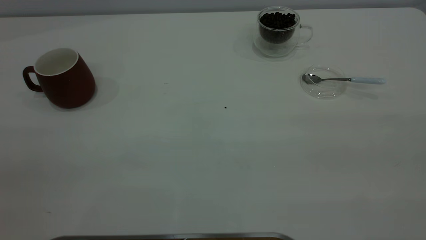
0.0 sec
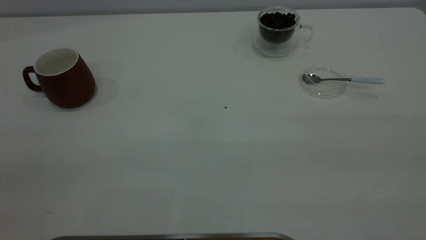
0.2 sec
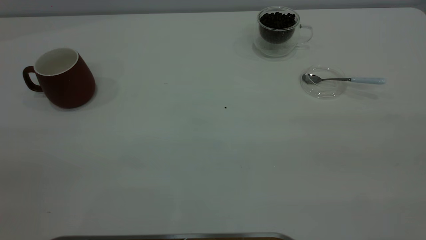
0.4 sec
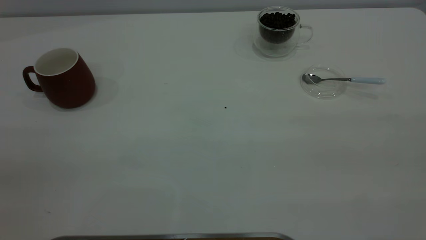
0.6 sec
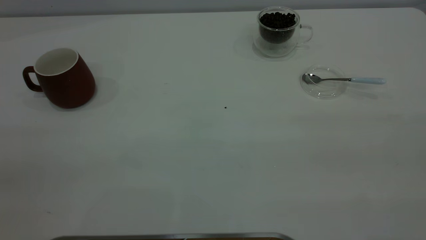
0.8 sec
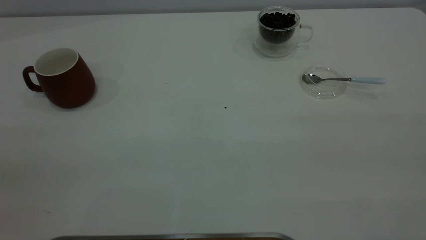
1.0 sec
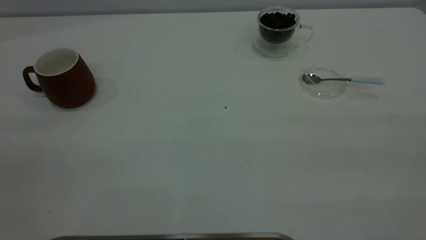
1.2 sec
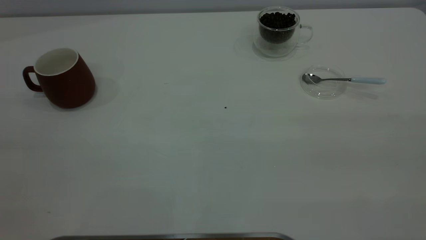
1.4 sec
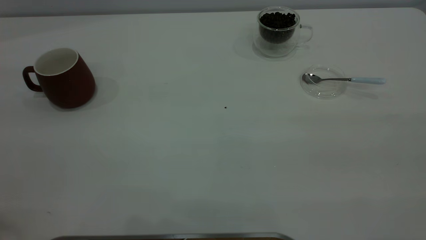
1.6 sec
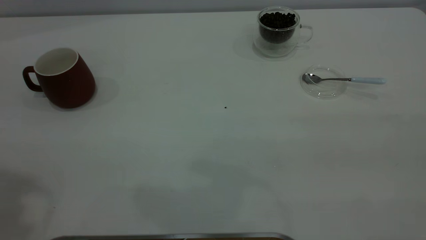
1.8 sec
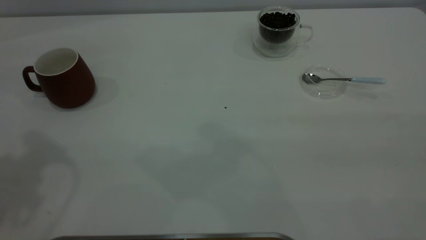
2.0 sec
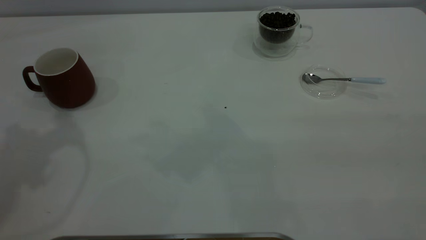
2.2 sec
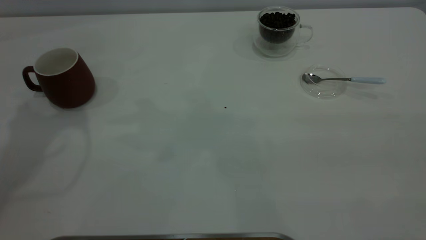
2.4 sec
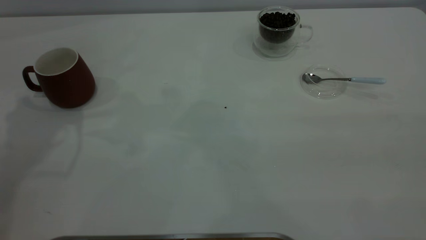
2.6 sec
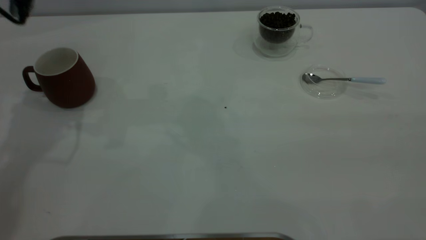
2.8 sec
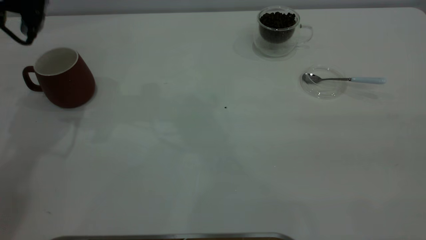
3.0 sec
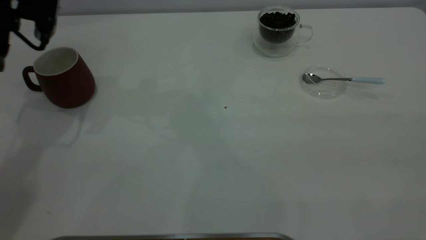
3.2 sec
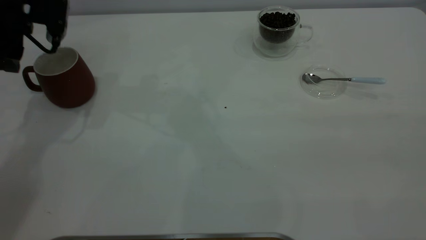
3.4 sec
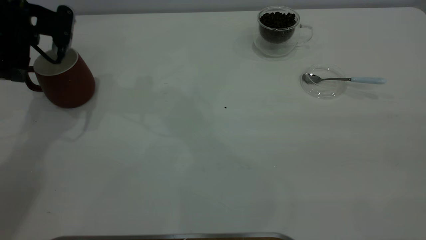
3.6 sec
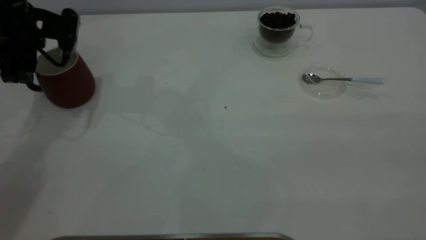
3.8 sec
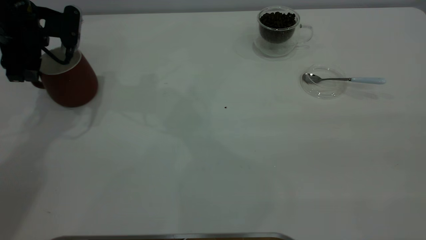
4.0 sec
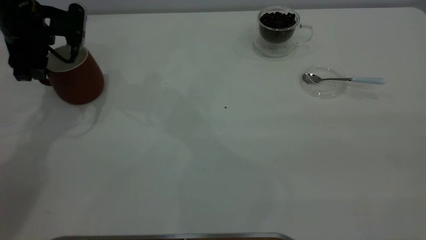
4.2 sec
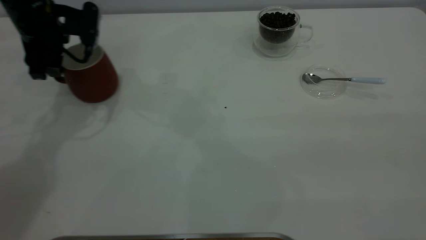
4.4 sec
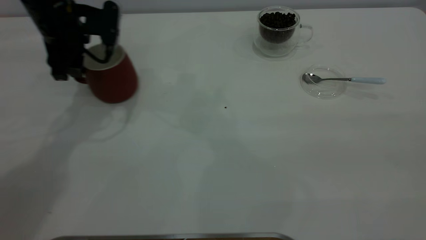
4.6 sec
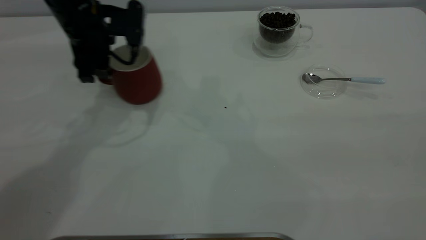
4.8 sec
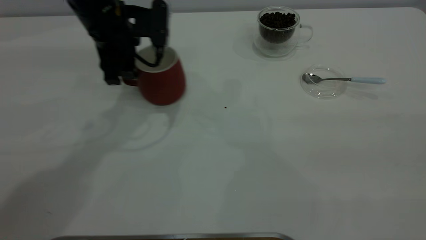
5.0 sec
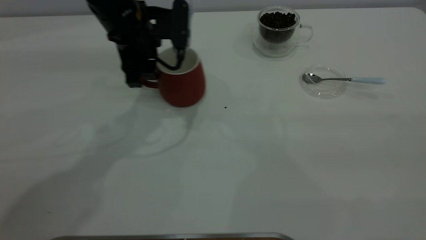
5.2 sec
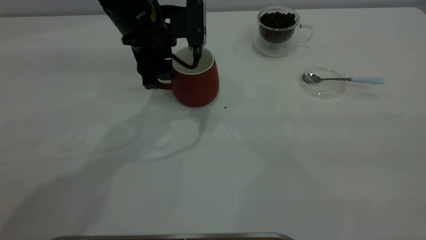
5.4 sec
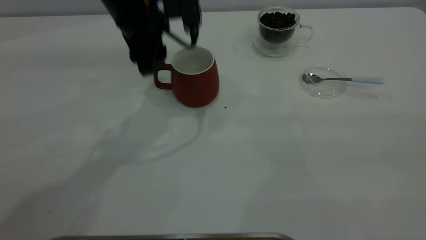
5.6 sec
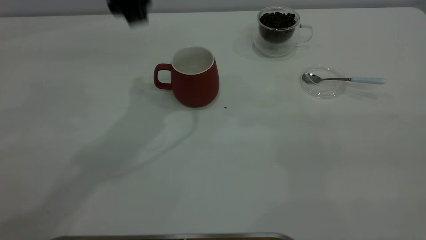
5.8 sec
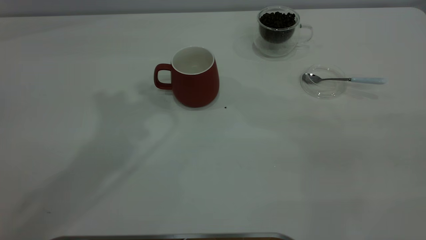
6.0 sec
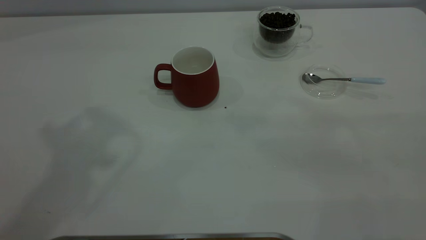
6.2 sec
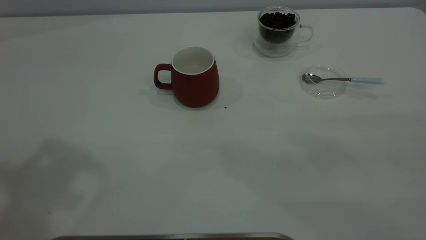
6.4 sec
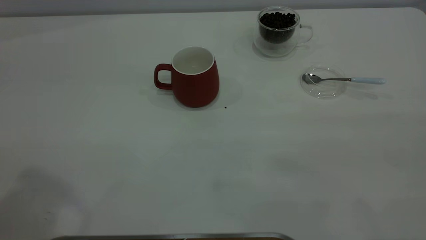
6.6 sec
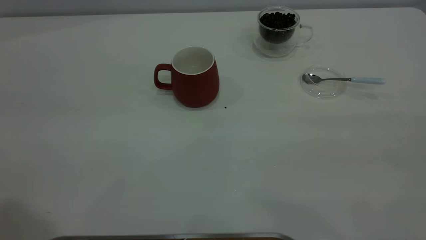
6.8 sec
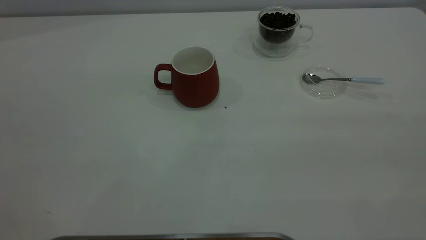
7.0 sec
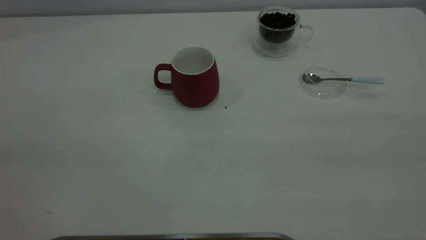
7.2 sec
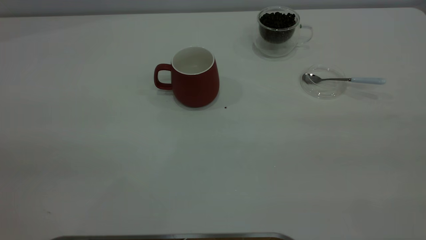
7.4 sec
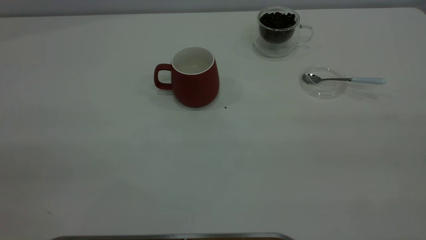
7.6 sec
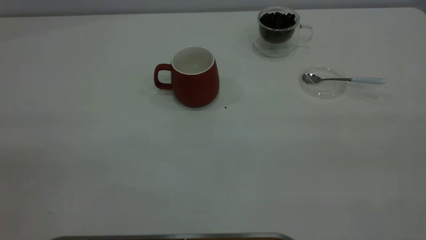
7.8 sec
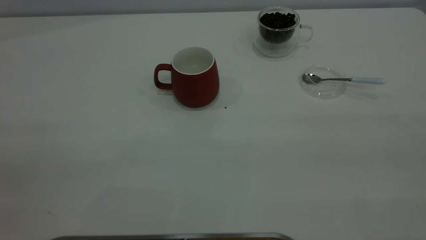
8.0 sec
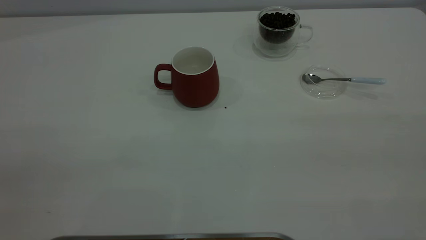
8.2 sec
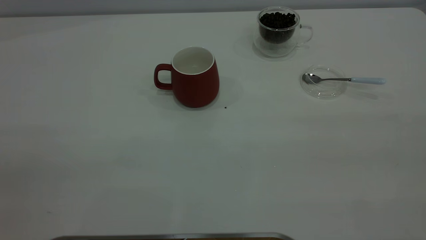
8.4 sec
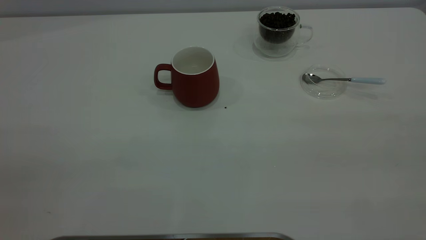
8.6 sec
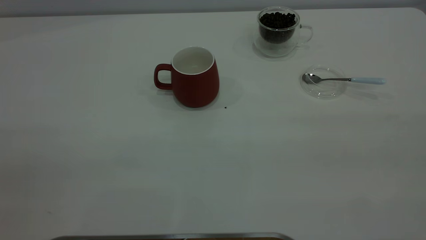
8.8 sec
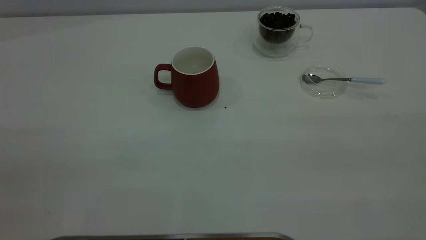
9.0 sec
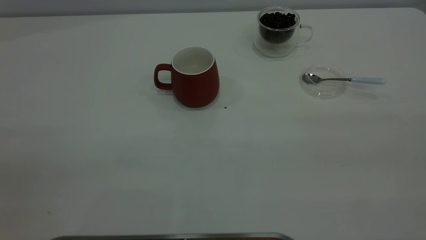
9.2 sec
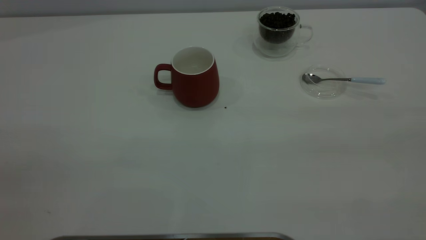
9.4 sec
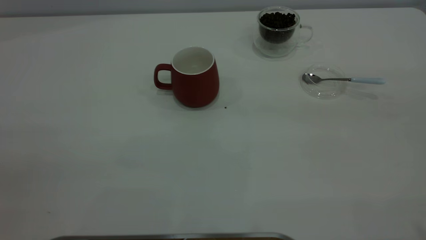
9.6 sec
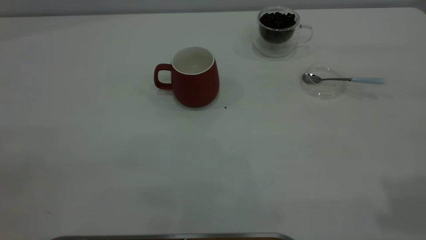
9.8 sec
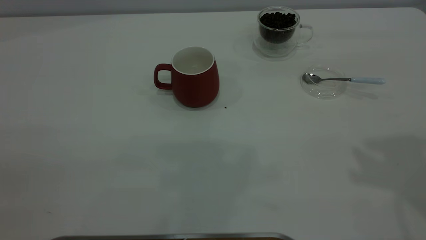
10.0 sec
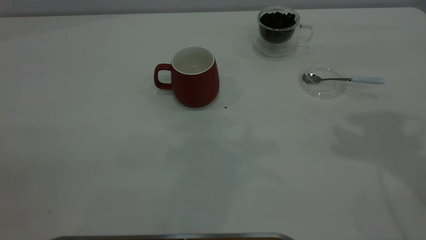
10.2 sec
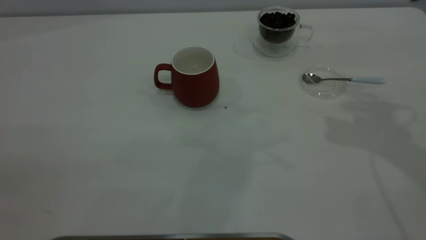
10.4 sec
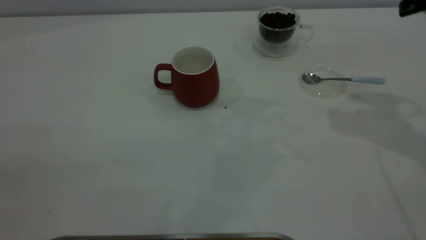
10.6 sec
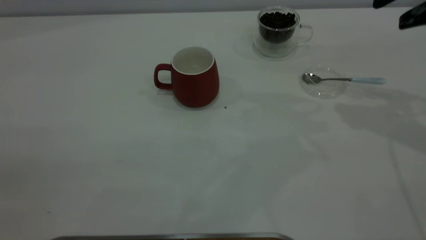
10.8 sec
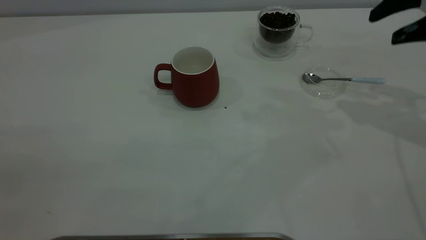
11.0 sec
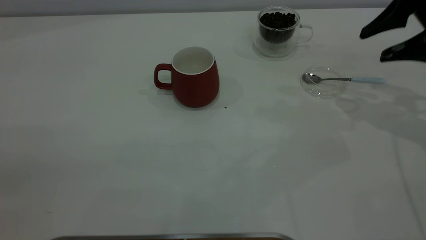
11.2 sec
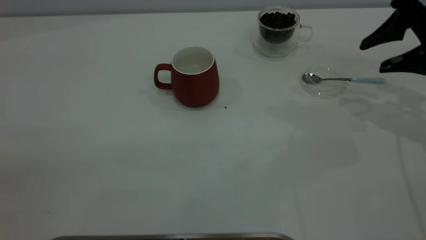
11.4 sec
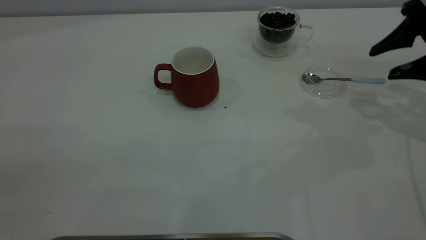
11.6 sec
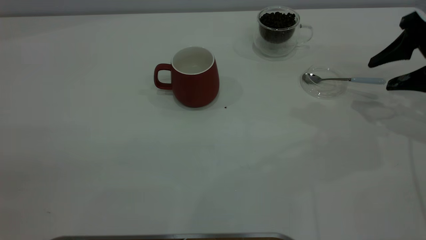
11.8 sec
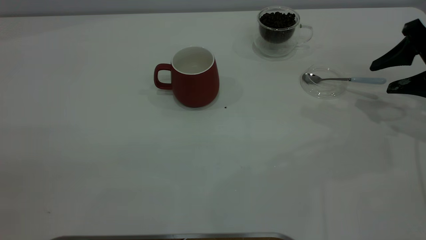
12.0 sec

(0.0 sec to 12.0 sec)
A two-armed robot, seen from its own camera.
Task of the whole recording: the left gripper place the red cup in the center of the table, the right gripper take the blue spoon from the cup lid and scoop out the coffee beans from the coffee cup and put them into the red cup, the right gripper put the spoon back into the cup lid.
Step, 0.0 sec - 5.6 sec: Move the cup to the center of view.
1.6 sec - 3.0 sec: The left gripper is displaced forward and downward by roughly 35 cm.
3.0 sec - 4.4 sec: The left gripper heads downward and to the right, covering some 10 cm.
4.4 sec - 6.0 sec: The left gripper goes about 30 cm upward, backward and to the right.
10.4 sec - 12.0 sec: The right gripper is displaced downward and to the right by about 20 cm.

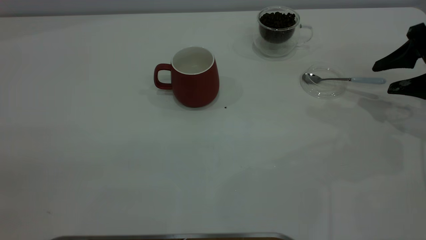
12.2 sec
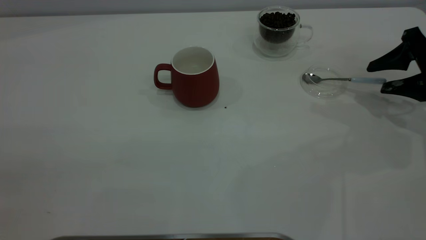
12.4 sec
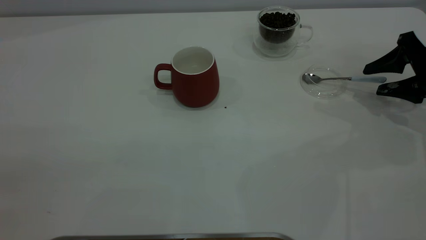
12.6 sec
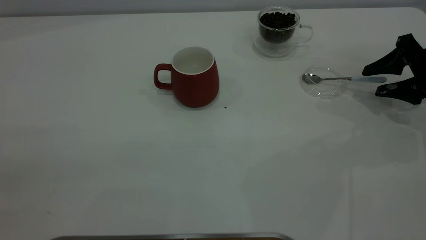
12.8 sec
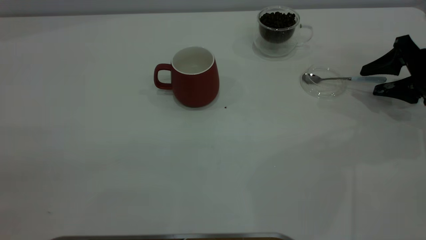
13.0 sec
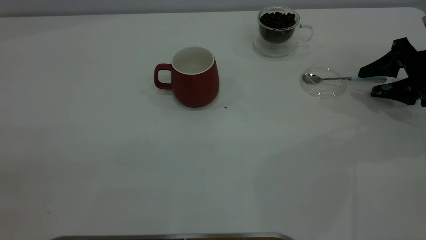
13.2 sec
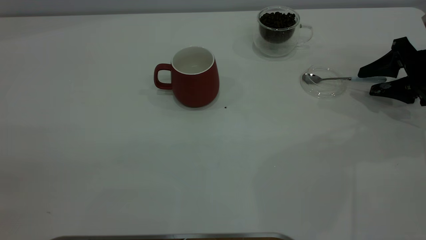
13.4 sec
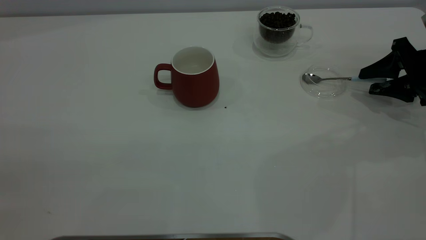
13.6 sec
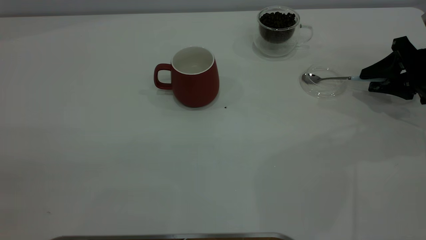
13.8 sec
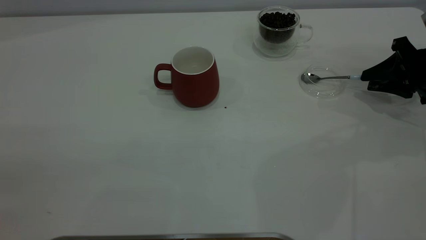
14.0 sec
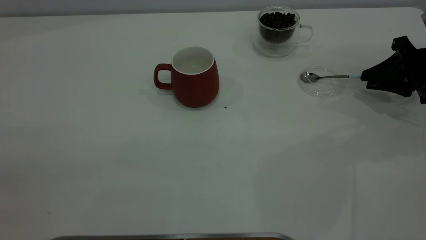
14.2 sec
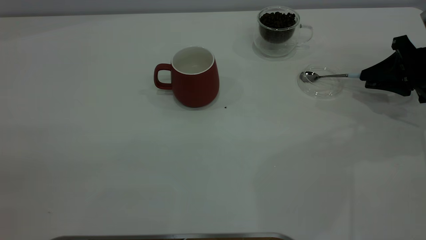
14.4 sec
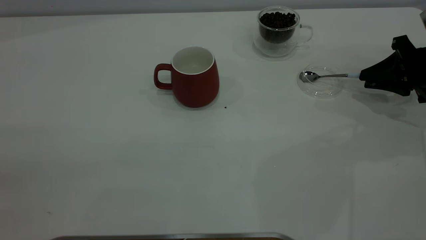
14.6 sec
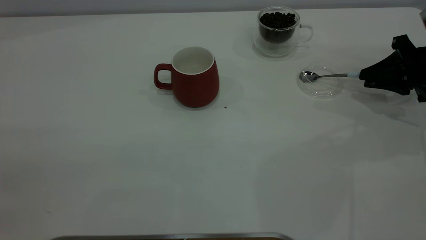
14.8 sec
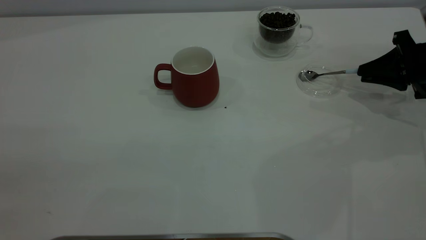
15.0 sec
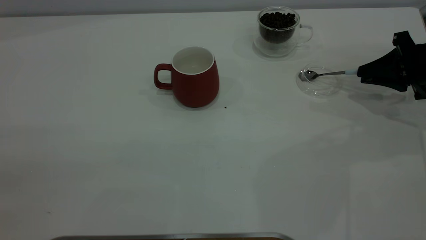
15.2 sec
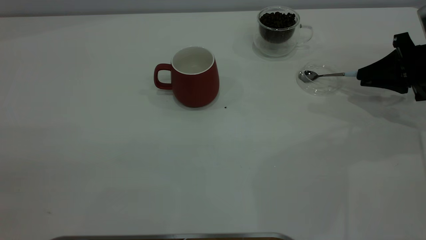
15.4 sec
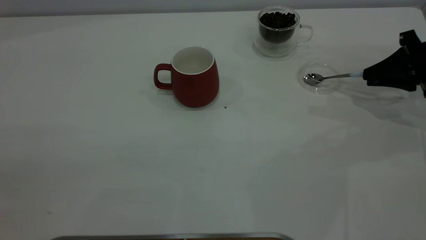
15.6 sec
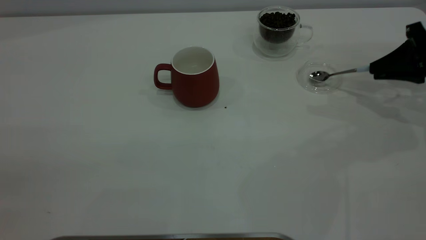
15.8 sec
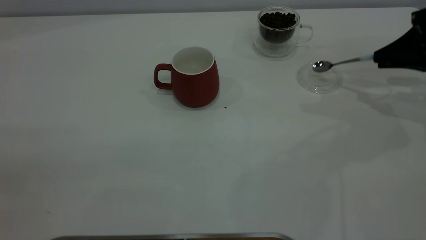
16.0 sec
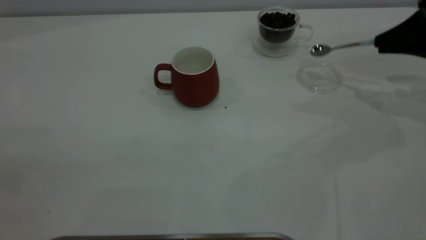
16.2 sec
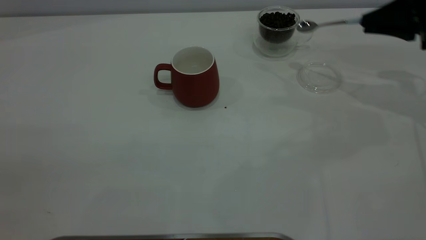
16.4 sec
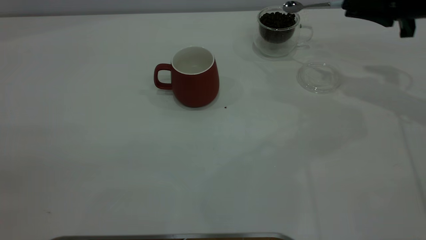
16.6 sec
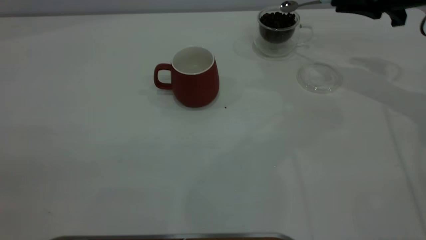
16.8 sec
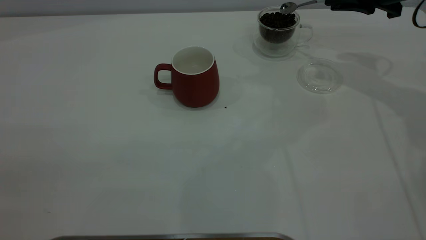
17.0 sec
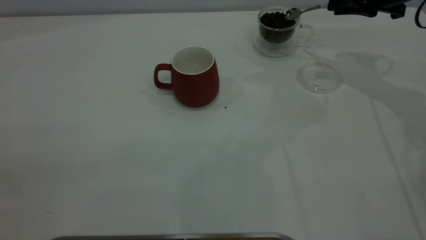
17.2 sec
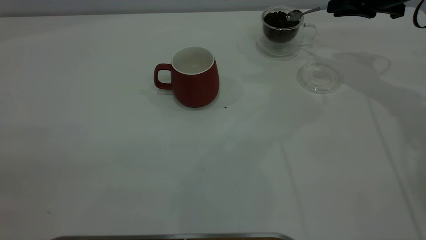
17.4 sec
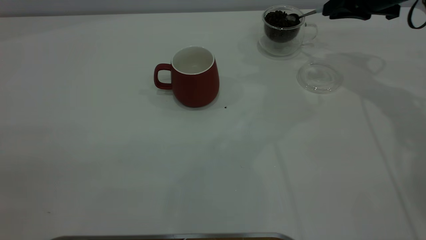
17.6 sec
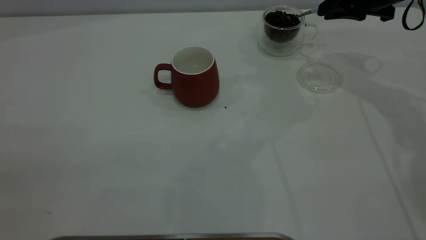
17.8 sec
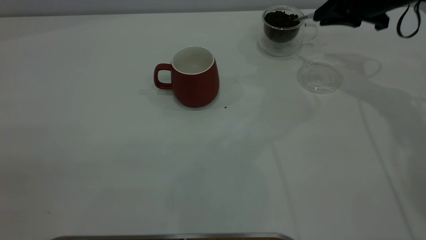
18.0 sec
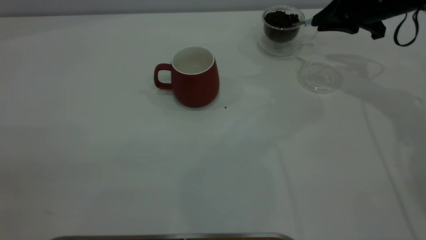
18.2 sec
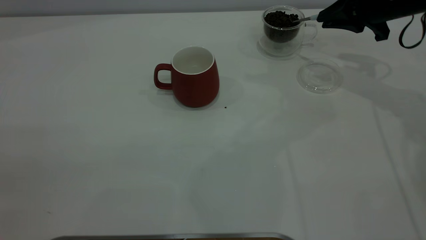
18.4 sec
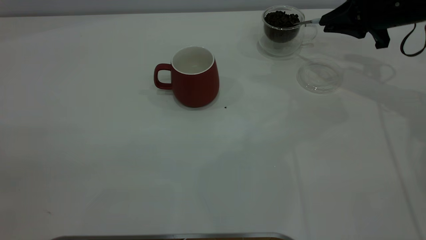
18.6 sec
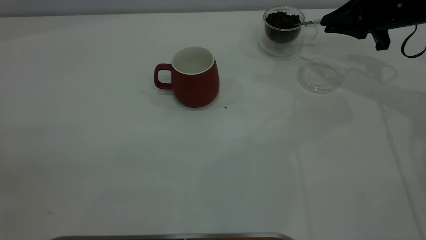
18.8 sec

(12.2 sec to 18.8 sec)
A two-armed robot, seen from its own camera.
Task of the whole recording: the left gripper place the red cup in the center of the table, the right gripper take the blue spoon from the cup lid and scoop out the coffee beans from the coffee cup and put them into the red cup, the right gripper put the spoon back into the cup lid.
Step, 12.2 sec - 16.0 sec: Pick up the spoon.
12.2 sec - 13.8 sec: The right gripper ends up roughly 5 cm from where it was, and closes up.
13.8 sec - 15.4 sec: The right gripper closes up.
15.4 sec - 17.2 sec: The right gripper is displaced upward, forward and to the left by about 15 cm.
